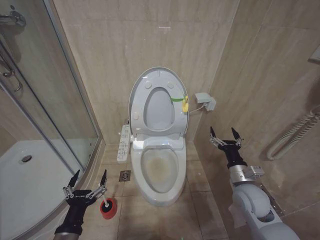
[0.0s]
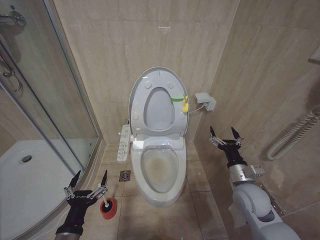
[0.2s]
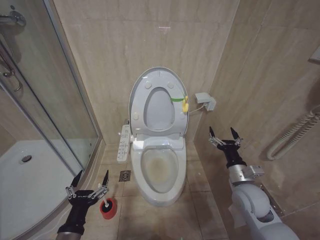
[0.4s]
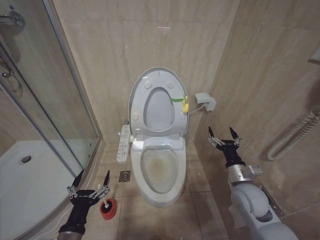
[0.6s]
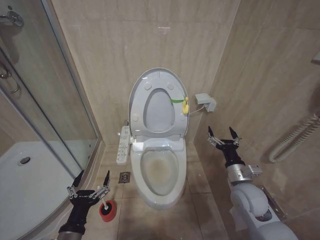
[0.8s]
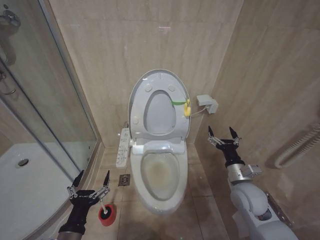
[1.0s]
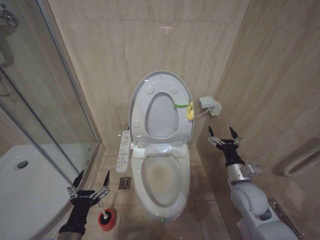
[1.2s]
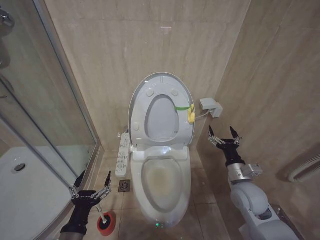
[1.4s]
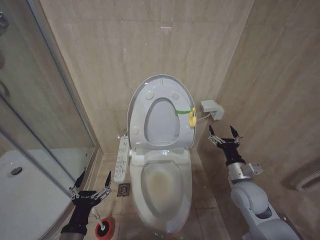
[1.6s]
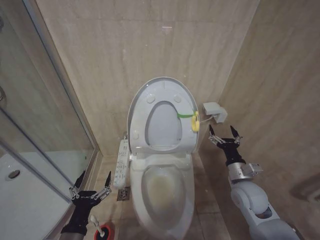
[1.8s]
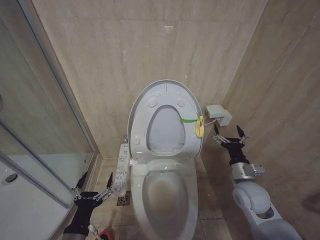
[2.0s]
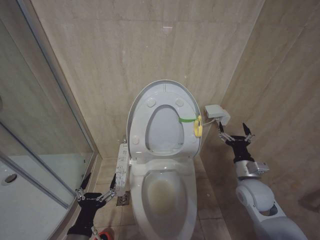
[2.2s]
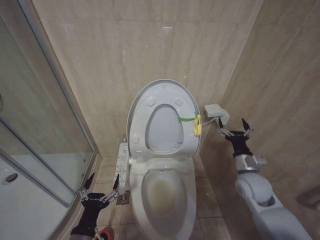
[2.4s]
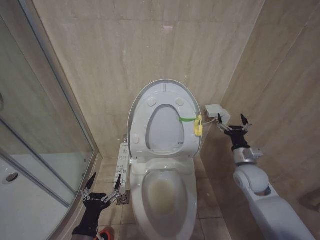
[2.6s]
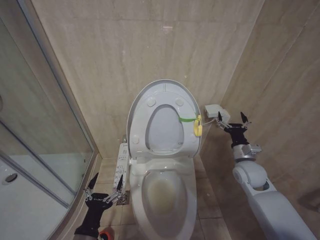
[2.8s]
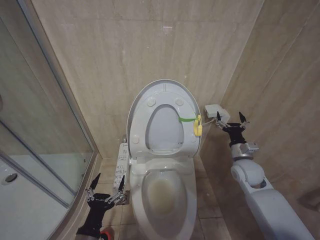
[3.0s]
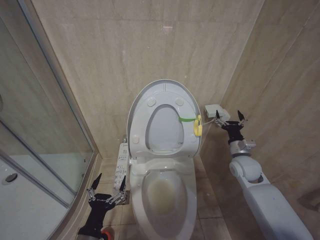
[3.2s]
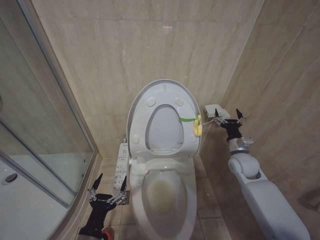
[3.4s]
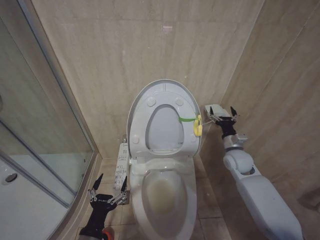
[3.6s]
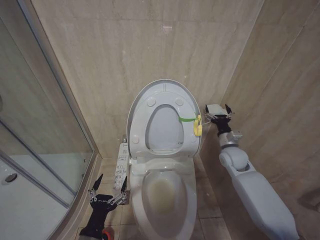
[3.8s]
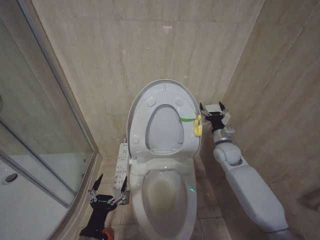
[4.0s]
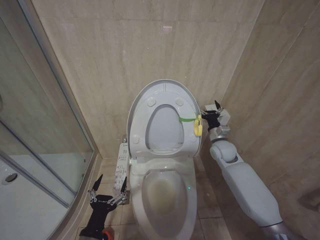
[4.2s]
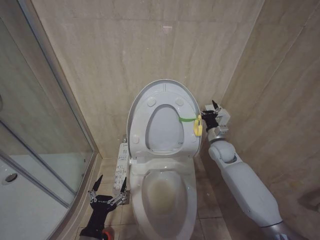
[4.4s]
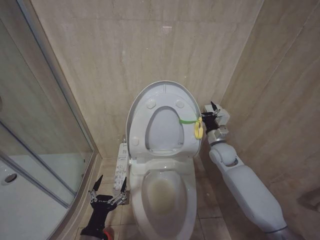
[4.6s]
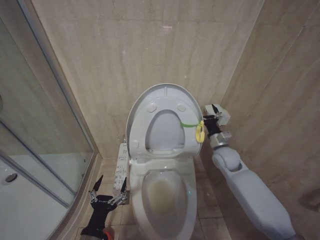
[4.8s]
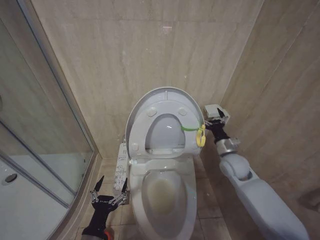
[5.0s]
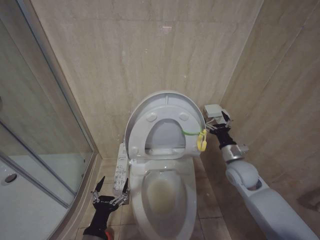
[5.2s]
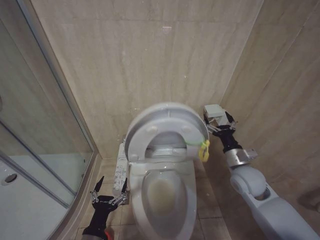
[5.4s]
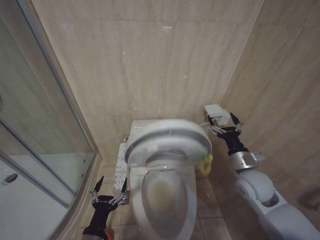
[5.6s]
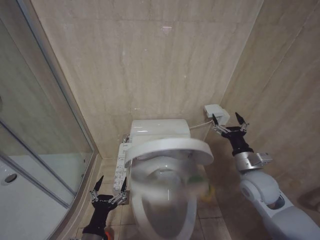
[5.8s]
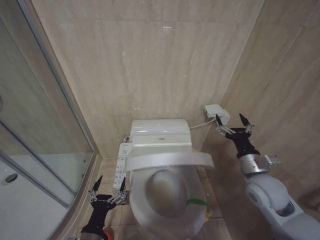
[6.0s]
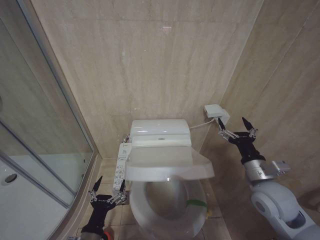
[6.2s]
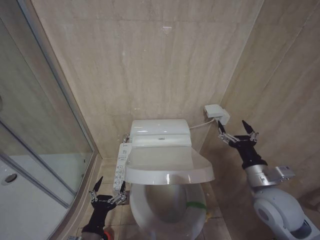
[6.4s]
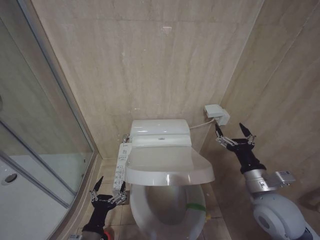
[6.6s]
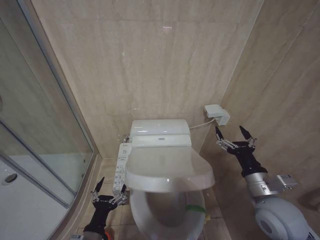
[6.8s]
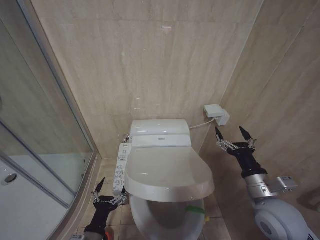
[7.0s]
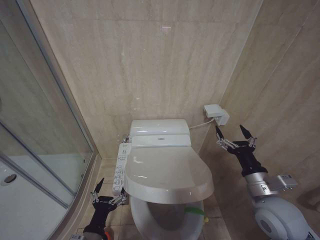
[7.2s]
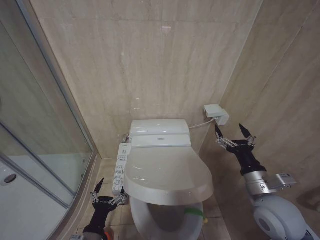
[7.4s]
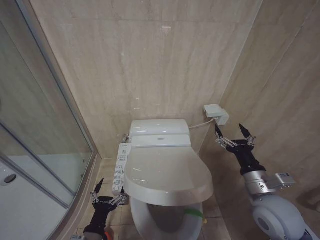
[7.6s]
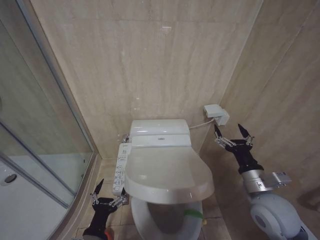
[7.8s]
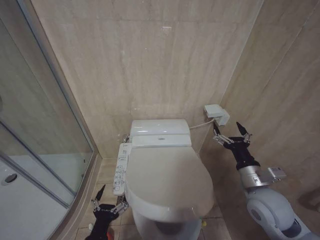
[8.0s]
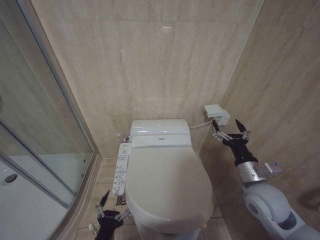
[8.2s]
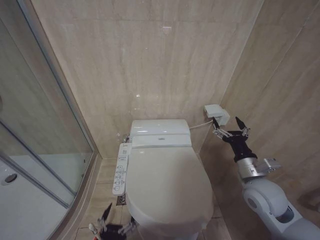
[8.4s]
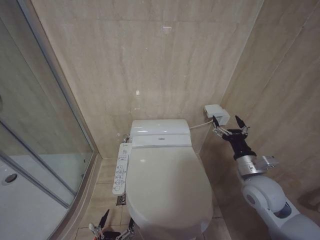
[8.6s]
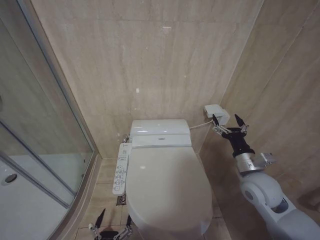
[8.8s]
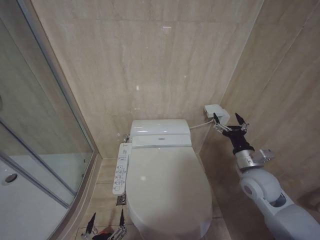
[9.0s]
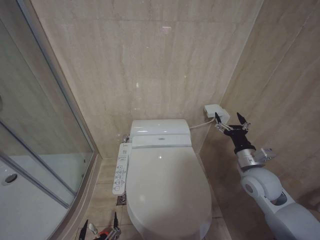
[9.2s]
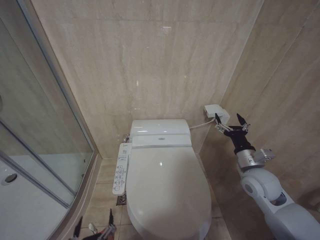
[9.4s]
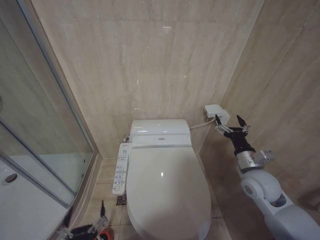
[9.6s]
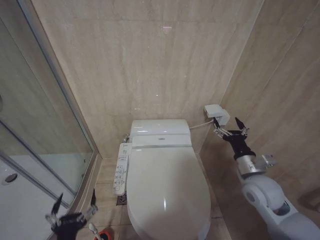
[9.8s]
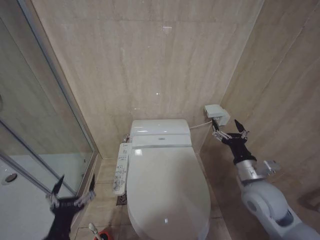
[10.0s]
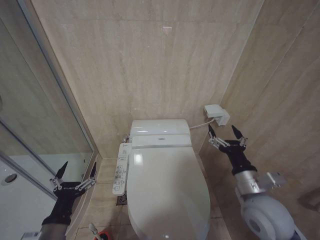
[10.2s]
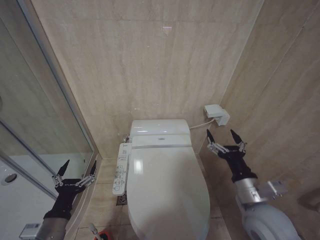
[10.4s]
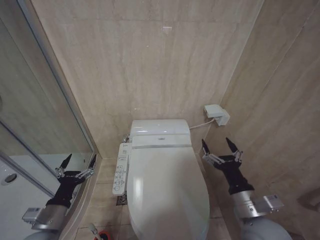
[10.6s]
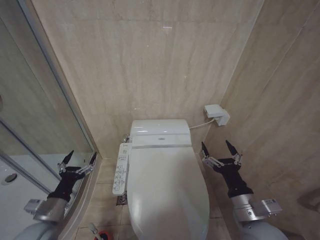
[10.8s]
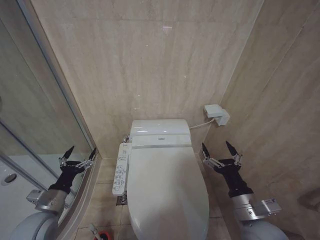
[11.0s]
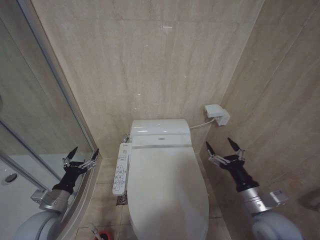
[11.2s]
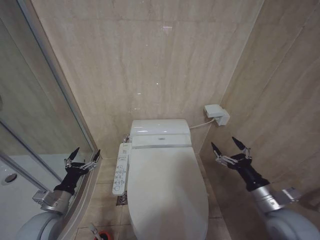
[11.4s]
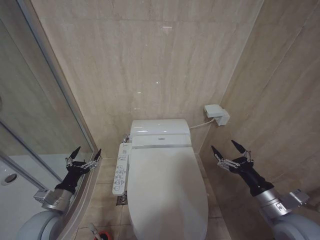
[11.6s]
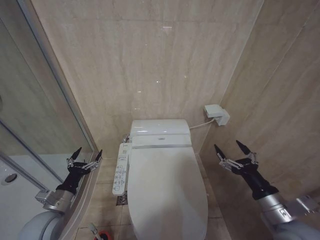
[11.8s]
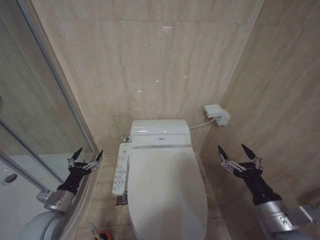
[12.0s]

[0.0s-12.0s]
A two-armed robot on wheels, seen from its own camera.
Task of the whole recording: Open the toilet lid, clean the toilet bowl with a toilet brush, close the toilet lid, and flush.
0.0s to 1.6s: Both grippers stay about where they are.
1.6s to 3.0s: The right gripper heads forward, covering approximately 5 cm.
3.0s to 4.4s: The right gripper travels forward and to the left by about 10 cm.
4.4s to 6.0s: The right gripper heads backward, covering roughly 20 cm.
6.0s to 7.6s: The right gripper heads backward, covering some 5 cm.
7.6s to 9.0s: The right gripper travels forward by some 10 cm; the left gripper goes about 10 cm backward and to the right.
9.0s to 10.4s: The left gripper travels to the left, forward and upward by some 20 cm. The right gripper moves backward and to the left, approximately 10 cm.
10.4s to 12.0s: The right gripper shifts approximately 5 cm backward and to the right, while the left gripper travels forward and to the left by about 10 cm.

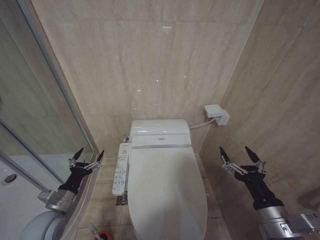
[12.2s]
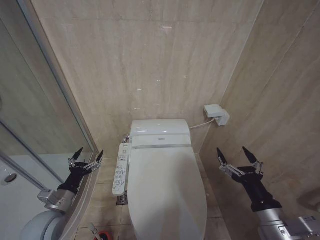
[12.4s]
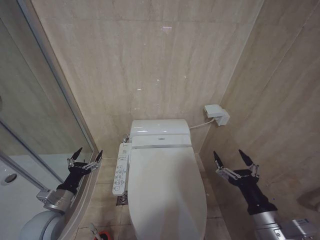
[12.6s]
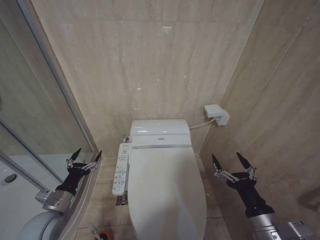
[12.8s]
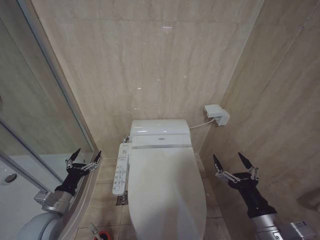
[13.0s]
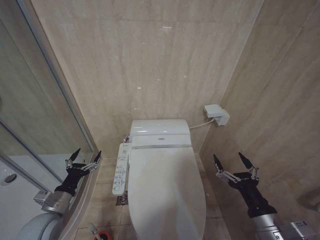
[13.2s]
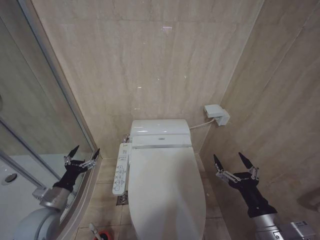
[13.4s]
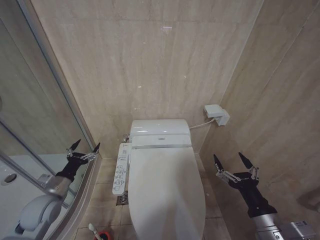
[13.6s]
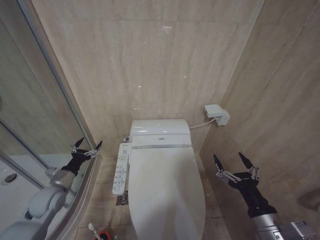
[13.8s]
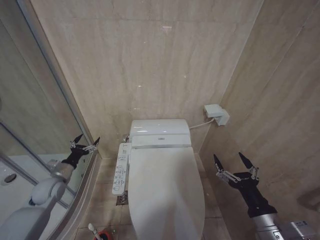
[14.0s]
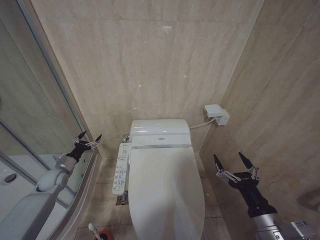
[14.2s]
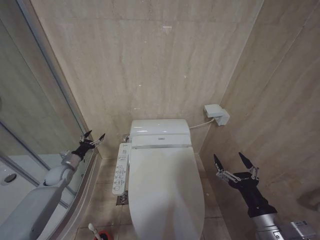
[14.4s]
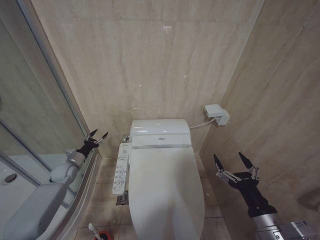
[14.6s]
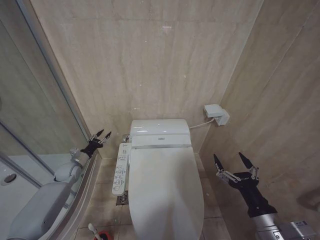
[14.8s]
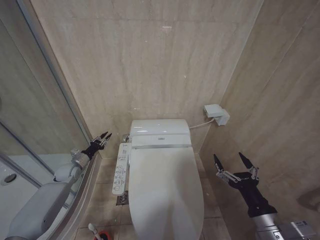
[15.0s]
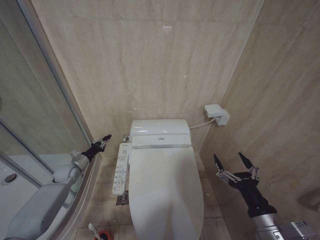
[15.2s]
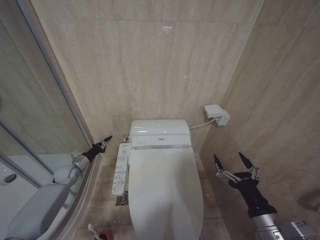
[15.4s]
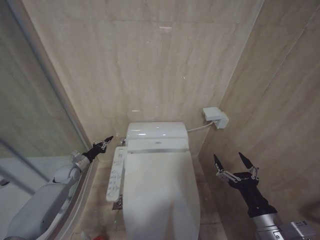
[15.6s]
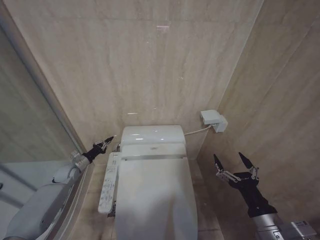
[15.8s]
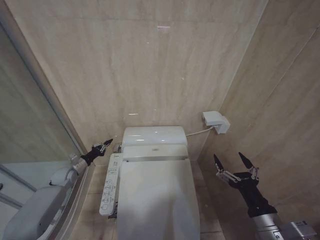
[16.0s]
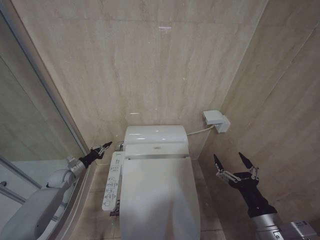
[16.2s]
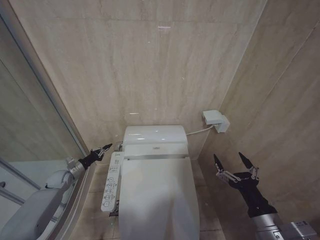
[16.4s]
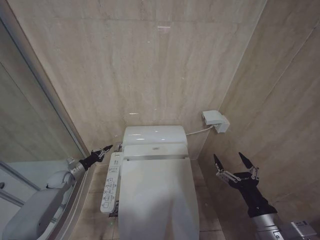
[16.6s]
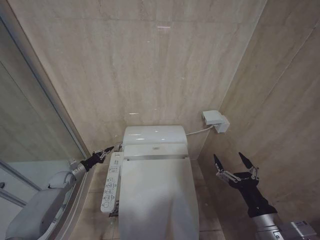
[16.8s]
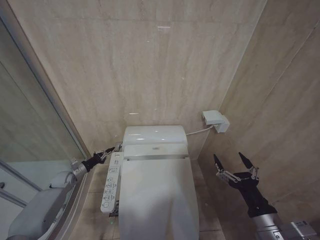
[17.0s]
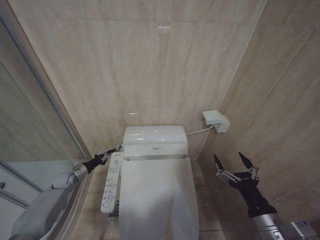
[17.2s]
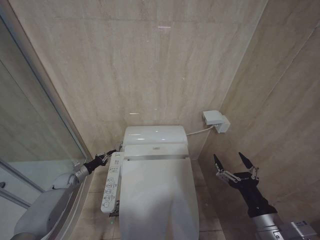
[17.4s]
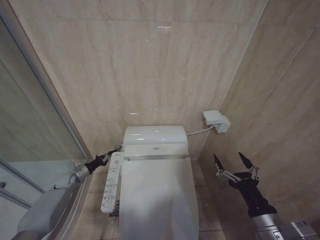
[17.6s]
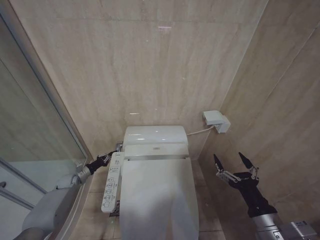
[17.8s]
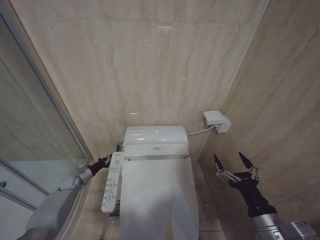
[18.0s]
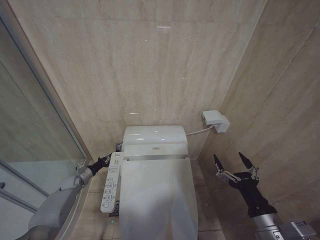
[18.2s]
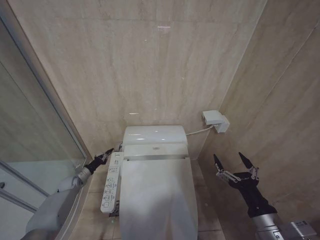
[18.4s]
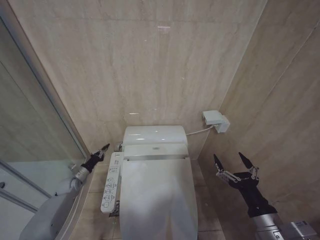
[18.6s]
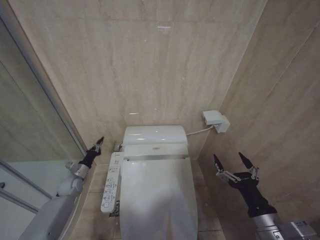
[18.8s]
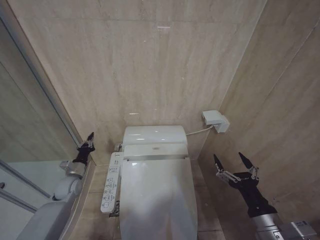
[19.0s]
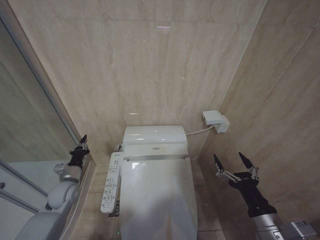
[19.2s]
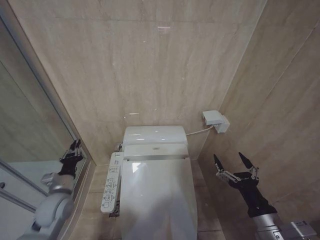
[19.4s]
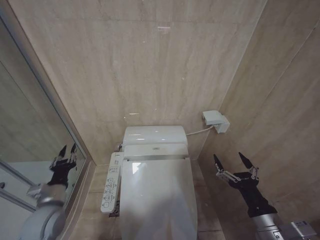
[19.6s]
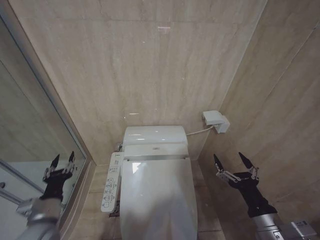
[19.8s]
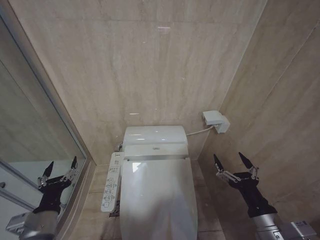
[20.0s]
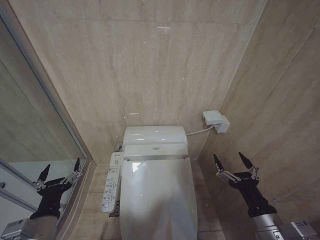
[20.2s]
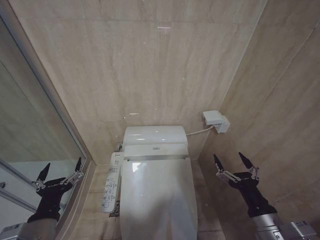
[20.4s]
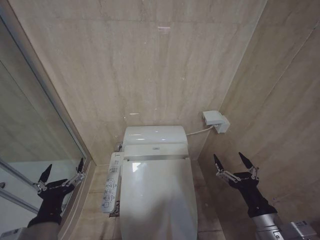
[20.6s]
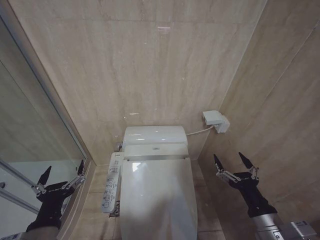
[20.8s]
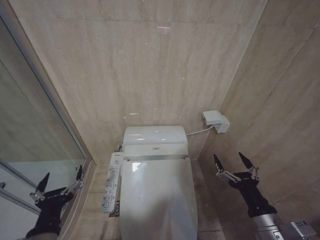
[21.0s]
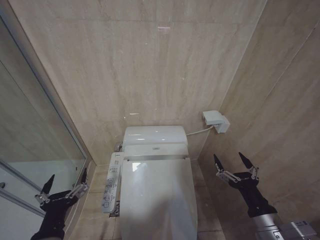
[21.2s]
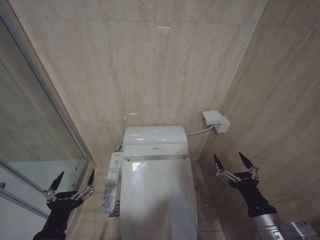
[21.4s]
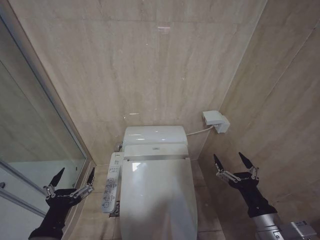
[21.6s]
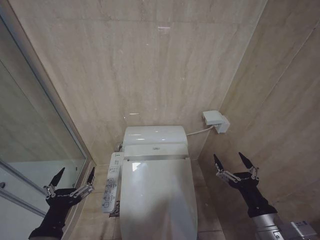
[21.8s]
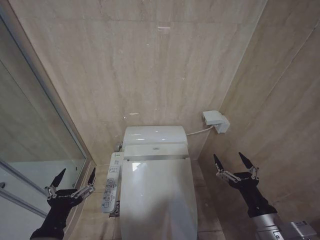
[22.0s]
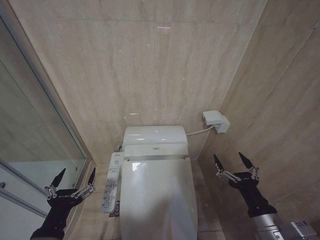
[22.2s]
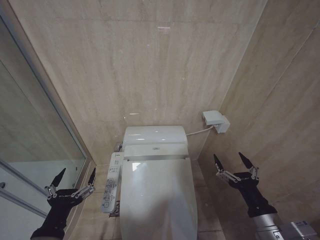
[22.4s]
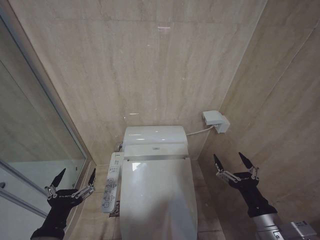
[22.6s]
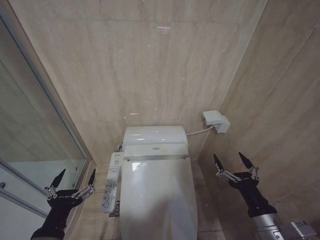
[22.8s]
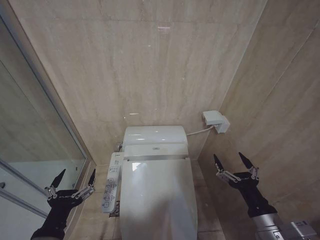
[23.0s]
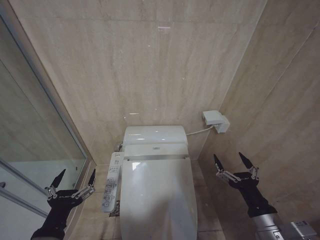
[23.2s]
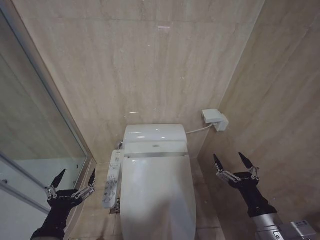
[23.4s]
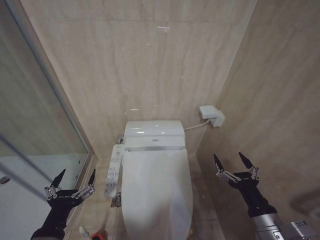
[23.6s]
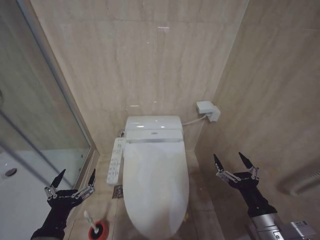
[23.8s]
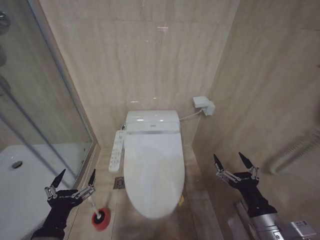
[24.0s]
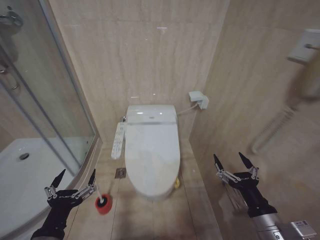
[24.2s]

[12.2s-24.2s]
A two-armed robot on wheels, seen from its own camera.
Task of the whole recording: Open the toilet lid, clean the toilet bowl with a toilet brush, close the toilet lid, and flush.
12.2s to 13.8s: The left gripper shifts approximately 5 cm forward.
13.8s to 15.2s: The left gripper is displaced forward by approximately 15 cm, and closes.
15.2s to 16.6s: The grippers stay close to where they were, moving slightly.
16.6s to 18.2s: The left gripper is displaced downward by some 5 cm.
18.2s to 19.8s: The left gripper travels backward, upward and to the right by roughly 35 cm.
19.8s to 21.2s: The left gripper goes approximately 15 cm backward and to the right, and opens.
21.2s to 22.6s: The grippers make only small movements.
